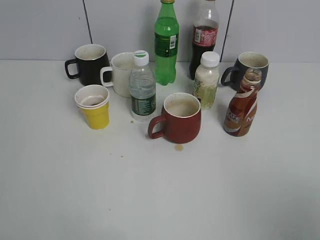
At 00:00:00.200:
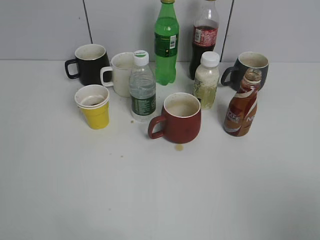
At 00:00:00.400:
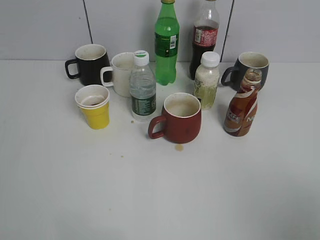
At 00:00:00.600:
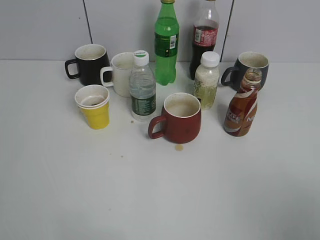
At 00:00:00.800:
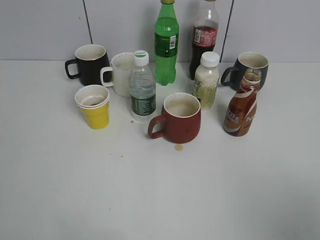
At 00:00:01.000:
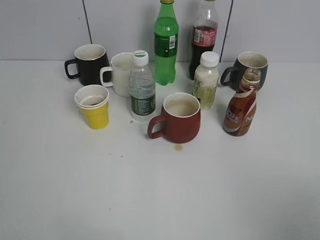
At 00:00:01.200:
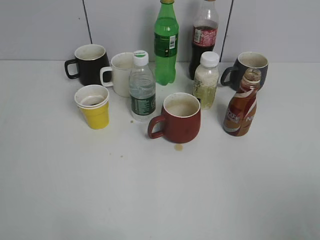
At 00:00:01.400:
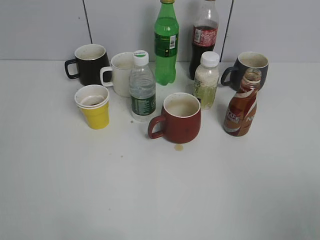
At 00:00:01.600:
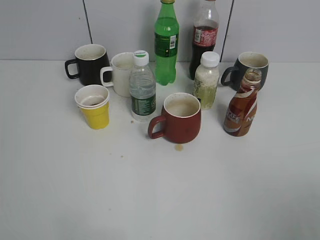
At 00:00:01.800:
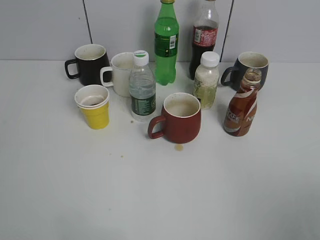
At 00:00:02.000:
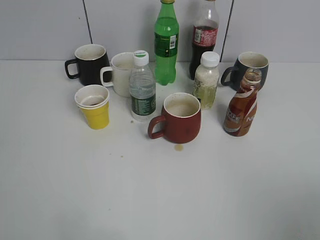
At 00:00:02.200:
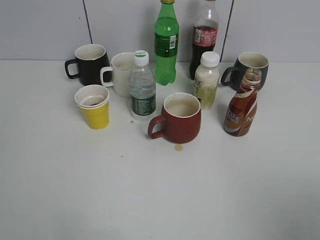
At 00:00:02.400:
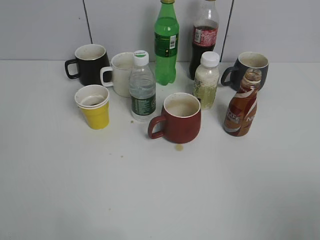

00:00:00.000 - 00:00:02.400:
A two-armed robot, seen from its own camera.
00:00:01.200 - 00:00:02.400: The two grippers keep their place.

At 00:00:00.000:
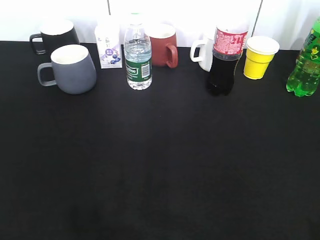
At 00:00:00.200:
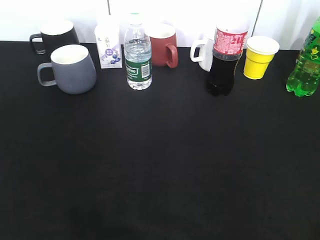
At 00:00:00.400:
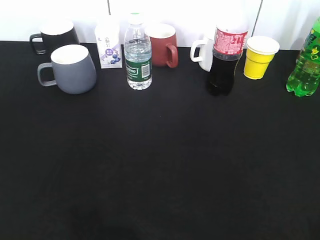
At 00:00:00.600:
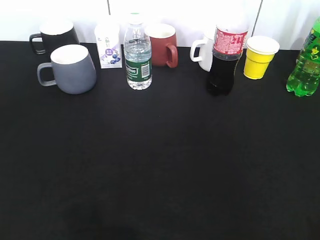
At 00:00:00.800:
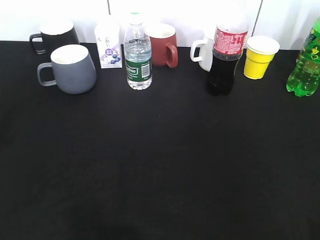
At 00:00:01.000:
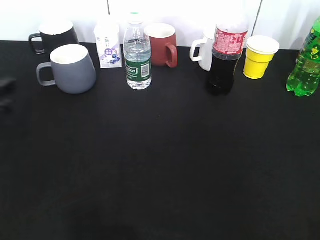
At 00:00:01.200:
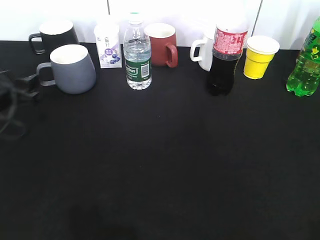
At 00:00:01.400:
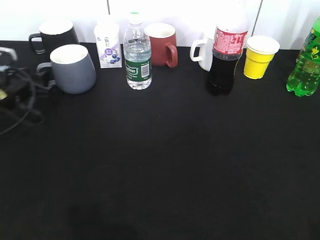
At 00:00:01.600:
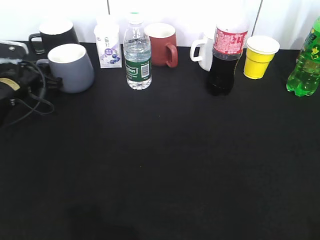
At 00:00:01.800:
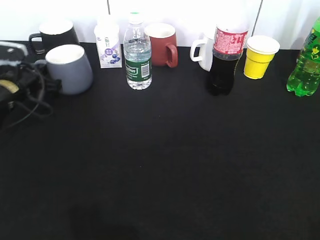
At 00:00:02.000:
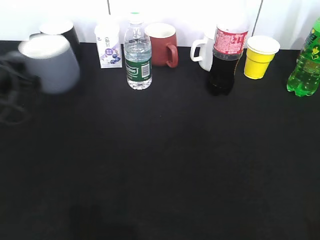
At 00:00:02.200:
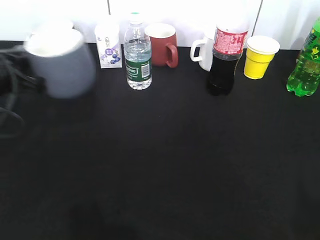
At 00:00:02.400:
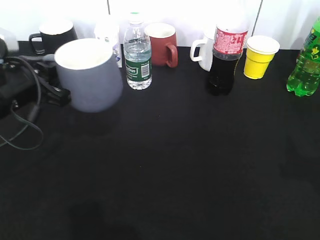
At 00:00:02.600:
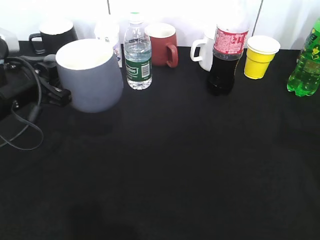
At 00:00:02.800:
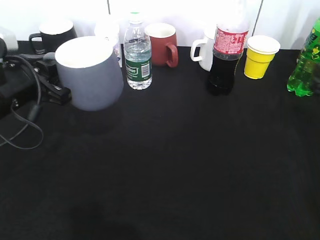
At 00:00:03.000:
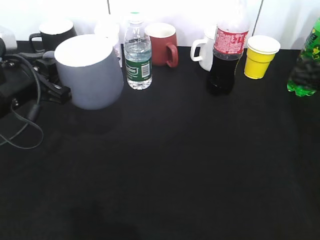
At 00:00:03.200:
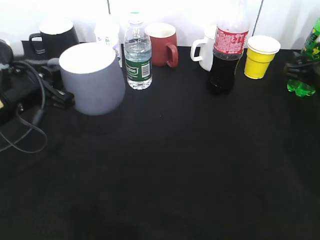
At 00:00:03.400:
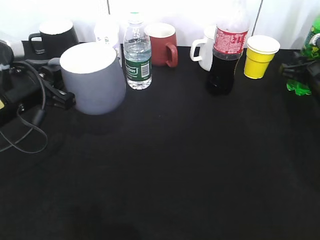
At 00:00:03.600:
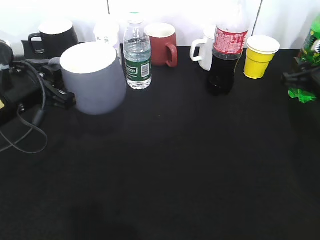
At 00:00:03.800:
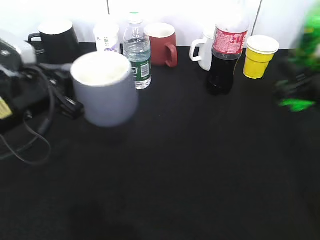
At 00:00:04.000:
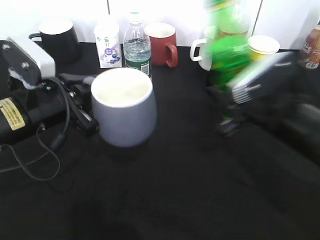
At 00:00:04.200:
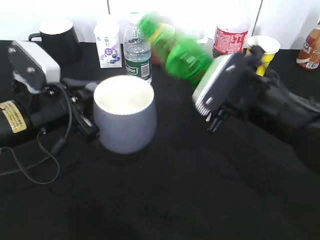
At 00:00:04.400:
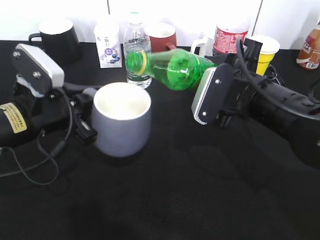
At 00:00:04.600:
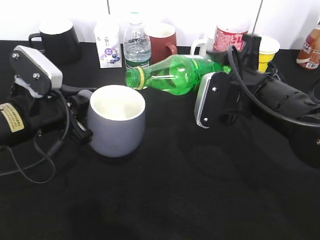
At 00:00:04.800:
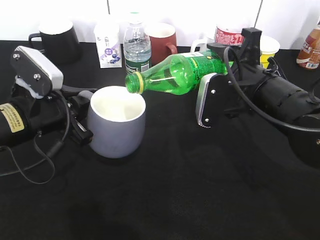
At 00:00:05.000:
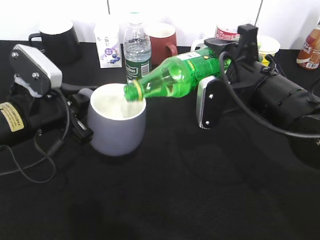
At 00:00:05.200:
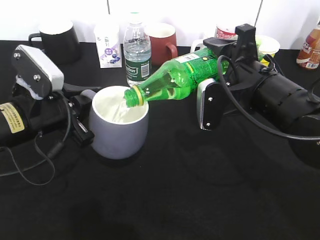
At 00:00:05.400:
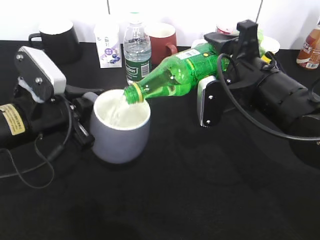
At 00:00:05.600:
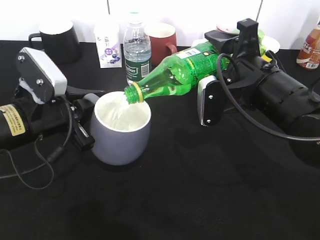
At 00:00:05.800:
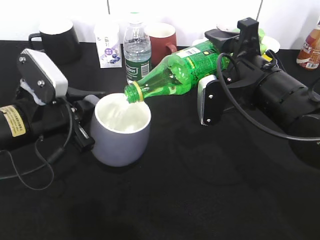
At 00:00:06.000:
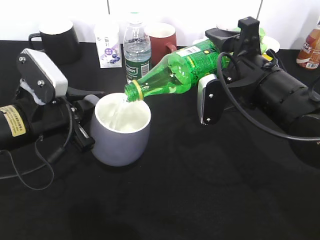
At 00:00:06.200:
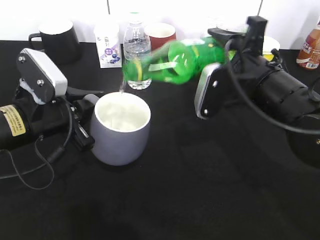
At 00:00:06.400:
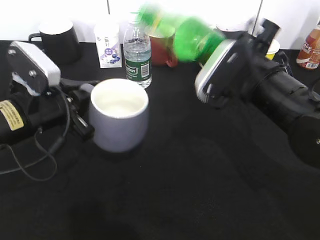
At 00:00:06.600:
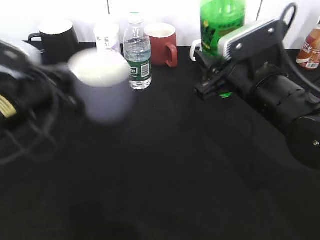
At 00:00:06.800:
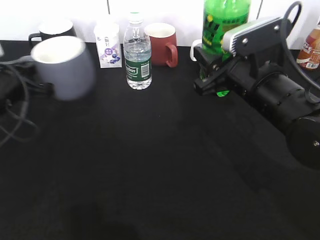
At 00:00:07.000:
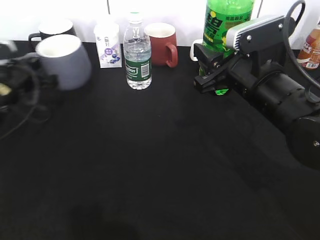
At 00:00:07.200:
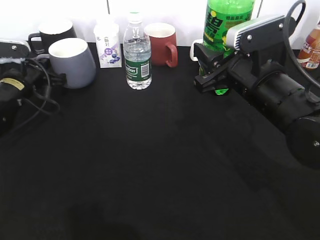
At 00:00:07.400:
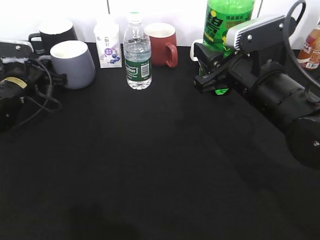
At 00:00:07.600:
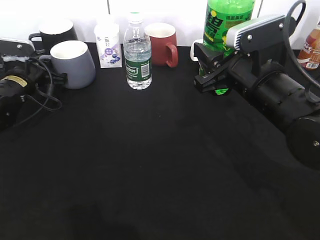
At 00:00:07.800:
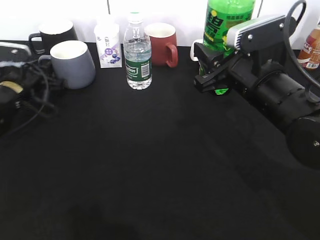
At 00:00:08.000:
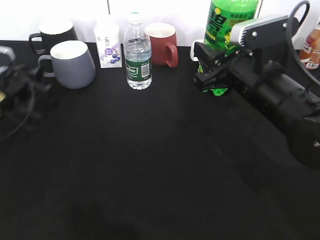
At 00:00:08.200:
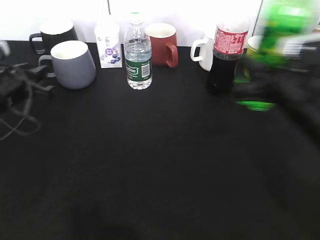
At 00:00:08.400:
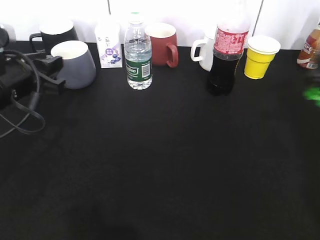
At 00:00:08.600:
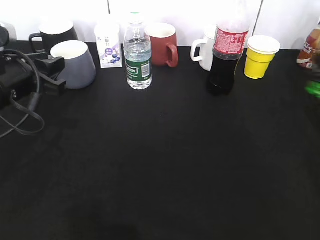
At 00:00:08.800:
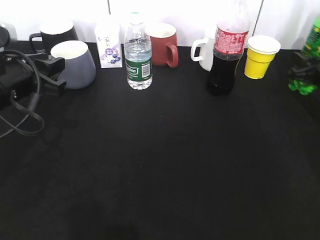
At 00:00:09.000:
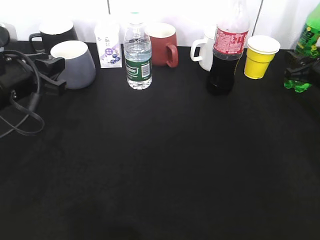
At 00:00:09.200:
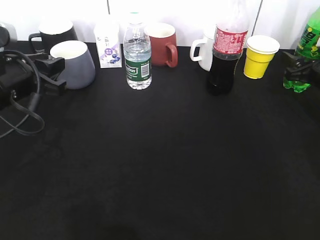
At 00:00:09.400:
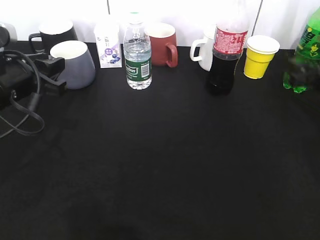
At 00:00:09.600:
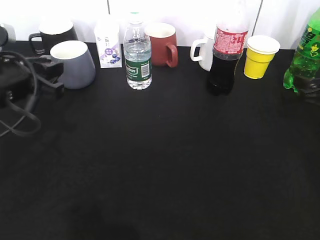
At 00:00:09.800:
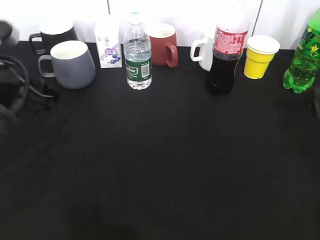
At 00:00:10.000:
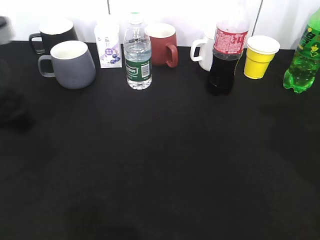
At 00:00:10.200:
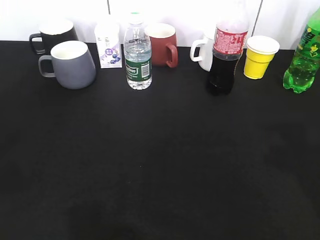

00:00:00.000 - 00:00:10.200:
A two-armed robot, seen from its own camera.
Step, 00:00:00.000 - 00:00:01.600: Grasp the grey cup with left gripper.
Step, 00:00:01.800 - 00:00:02.600: Lift the grey cup with left gripper.
Step, 00:00:02.800 - 00:00:03.400: Grasp the bottle with sprite with right gripper.
Step, 00:00:03.600 - 00:00:07.800: Place the grey cup on the table with left gripper.
Step, 00:00:08.200 - 00:00:09.600: Place the sprite bottle on the table with right gripper.
00:00:00.000 - 00:00:01.400: The left gripper shifts roughly 40 cm forward and downward.
00:00:01.400 - 00:00:03.000: The right gripper heads forward, covering about 35 cm. Meanwhile the left gripper goes roughly 15 cm backward, upward and to the right, and closes up.
00:00:03.000 - 00:00:04.400: The right gripper moves to the left, roughly 15 cm, and closes its fingers.
00:00:05.800 - 00:00:07.200: The left gripper shifts some 15 cm forward and to the left.
00:00:07.200 - 00:00:08.800: The right gripper moves to the right and forward, about 25 cm; the left gripper is displaced backward and upward by roughly 15 cm, and opens up.
00:00:08.800 - 00:00:10.200: The right gripper heads backward and upward, covering some 35 cm, and opens its fingers; the left gripper travels backward and upward by approximately 15 cm.
